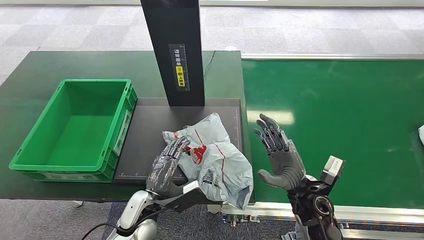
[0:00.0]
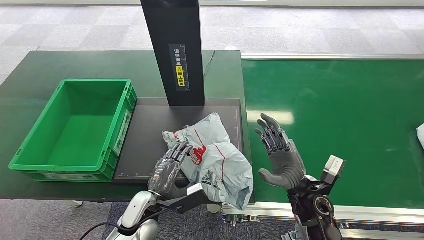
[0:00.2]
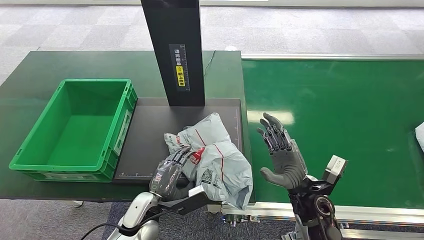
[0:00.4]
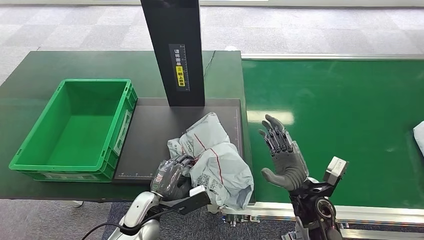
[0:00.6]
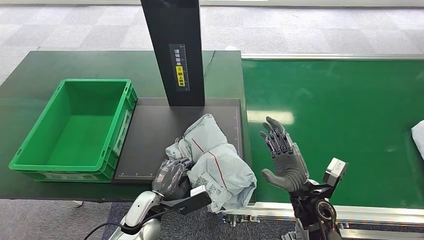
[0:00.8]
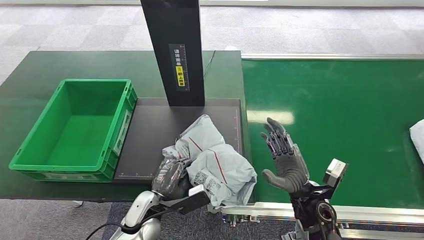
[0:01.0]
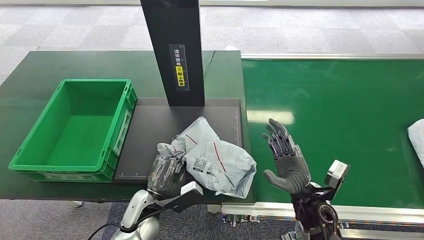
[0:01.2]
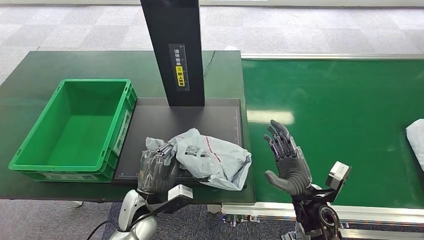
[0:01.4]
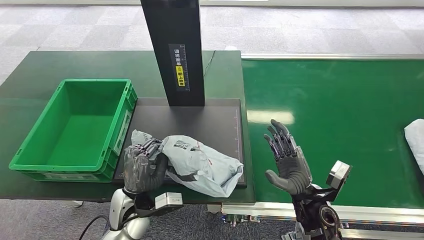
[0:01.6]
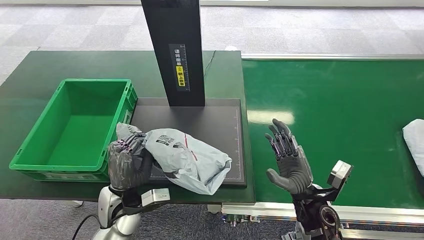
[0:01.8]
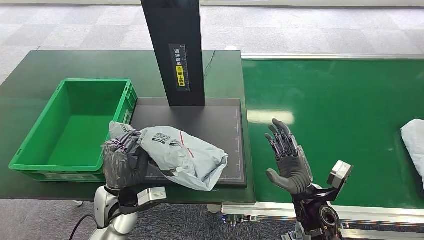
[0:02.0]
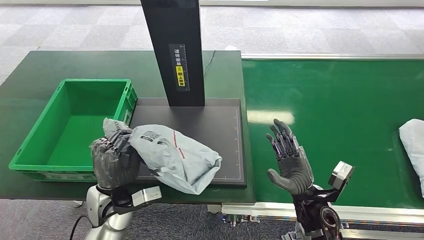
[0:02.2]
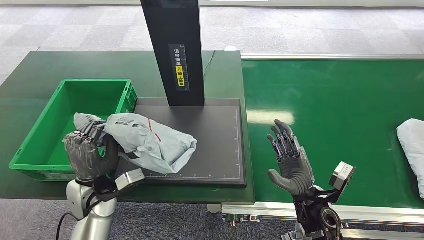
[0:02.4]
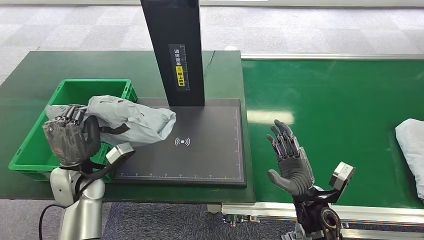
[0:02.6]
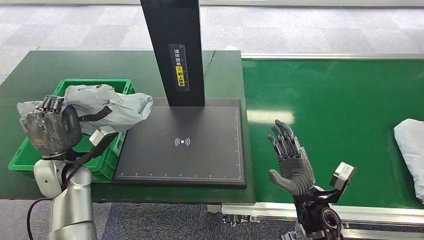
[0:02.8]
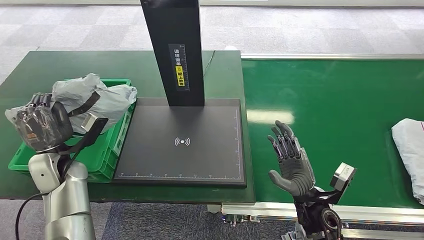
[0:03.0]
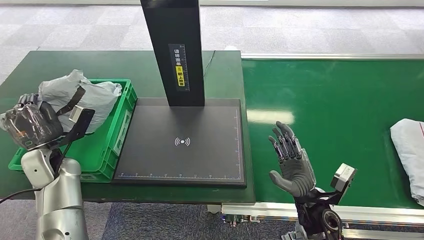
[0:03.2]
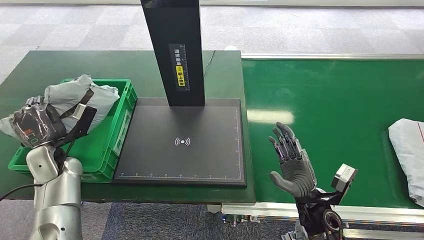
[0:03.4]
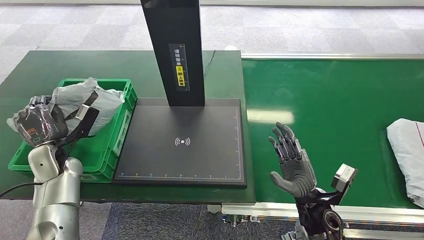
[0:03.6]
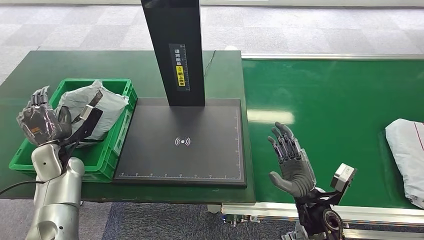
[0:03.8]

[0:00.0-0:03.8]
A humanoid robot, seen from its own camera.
Step, 0:01.8 to 0:02.0: Pick up the package from the inbound machine.
Step, 0:03.6 to 0:03.8: Place the package into the parcel locker.
0:00.0 to 0:01.2: There are only small adjustments of the hands.
0:01.2 to 0:02.6: The left hand shifts roughly 15 cm to the left and upward.
0:02.6 to 0:03.8: The left hand travels to the left and forward by about 10 cm.
